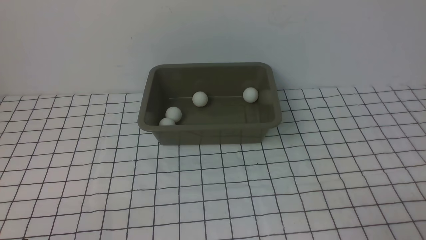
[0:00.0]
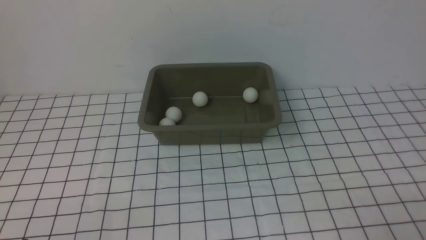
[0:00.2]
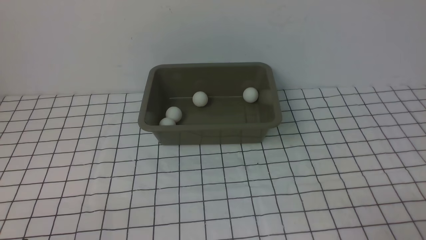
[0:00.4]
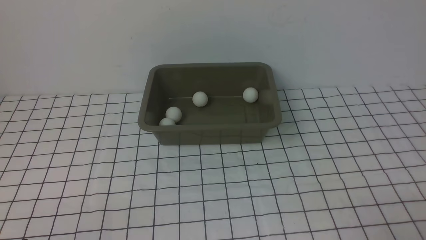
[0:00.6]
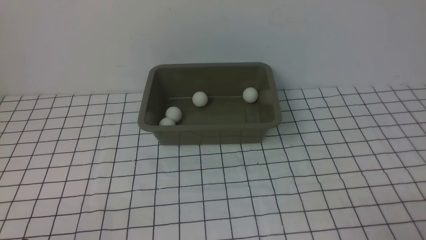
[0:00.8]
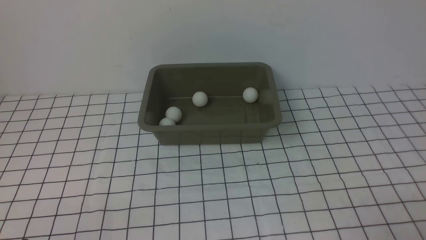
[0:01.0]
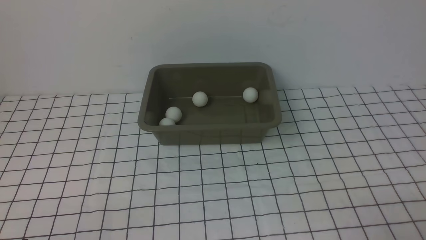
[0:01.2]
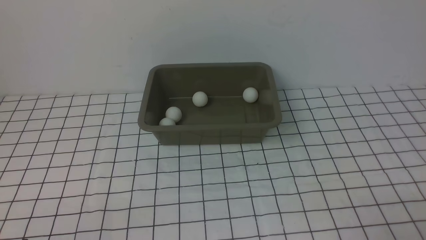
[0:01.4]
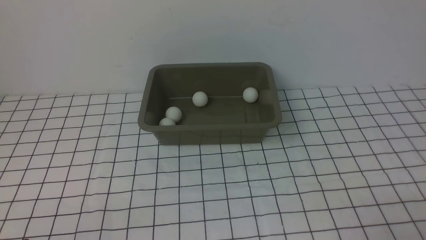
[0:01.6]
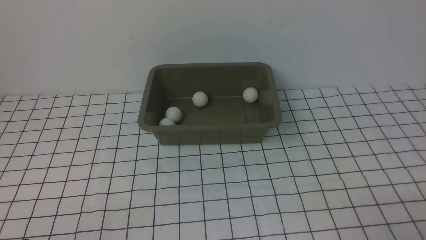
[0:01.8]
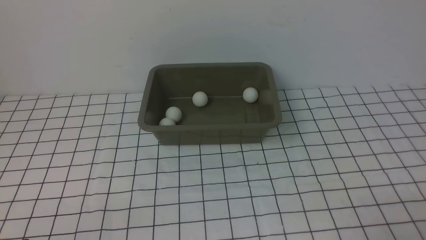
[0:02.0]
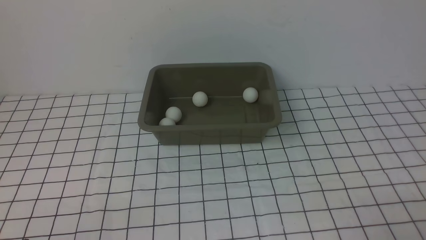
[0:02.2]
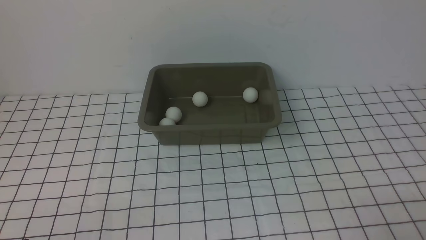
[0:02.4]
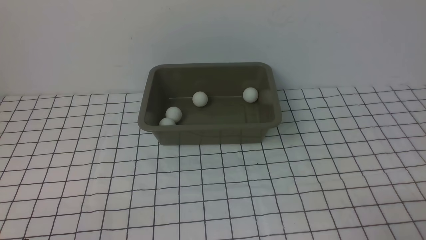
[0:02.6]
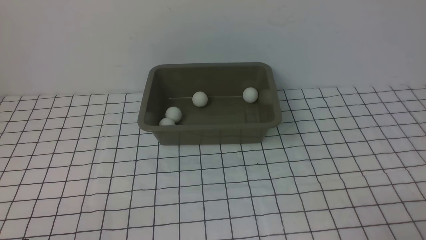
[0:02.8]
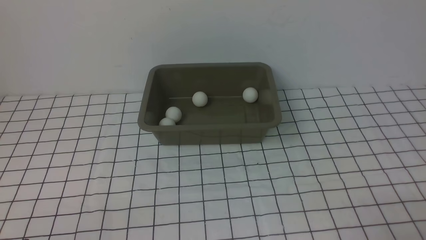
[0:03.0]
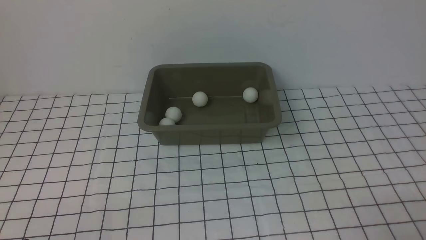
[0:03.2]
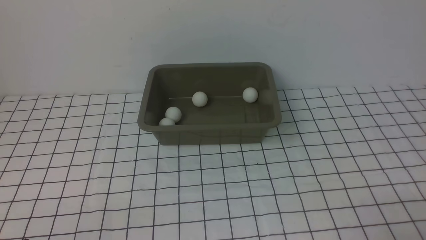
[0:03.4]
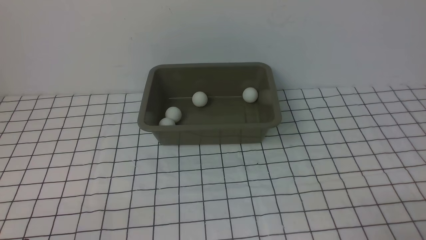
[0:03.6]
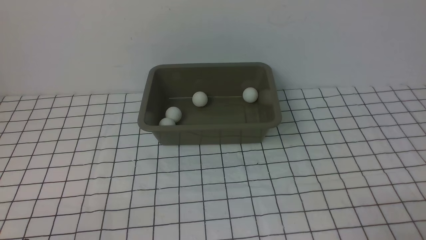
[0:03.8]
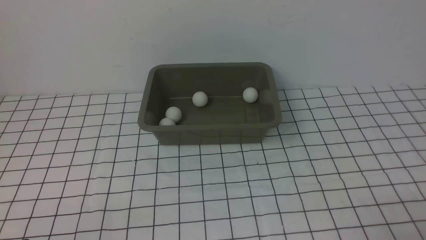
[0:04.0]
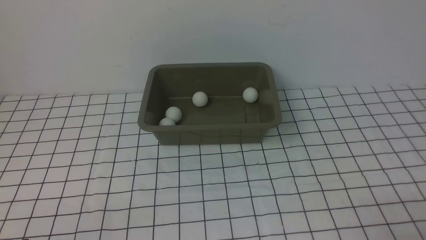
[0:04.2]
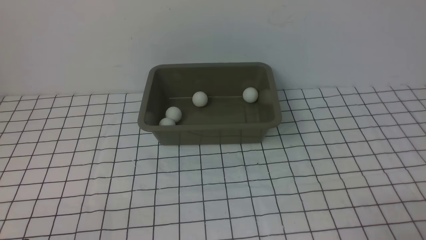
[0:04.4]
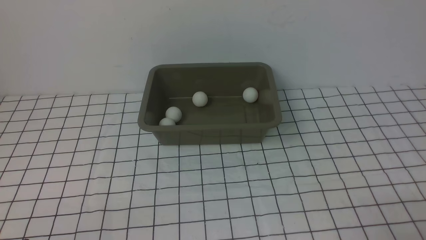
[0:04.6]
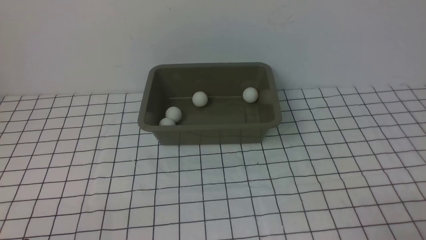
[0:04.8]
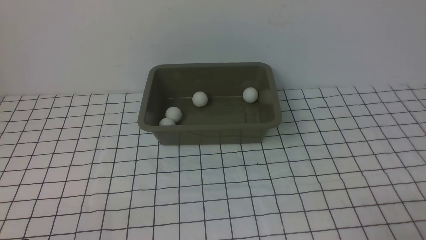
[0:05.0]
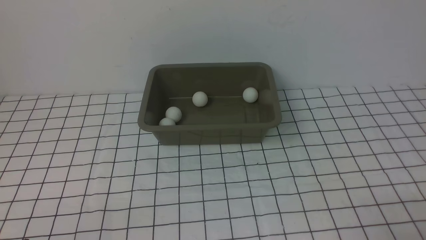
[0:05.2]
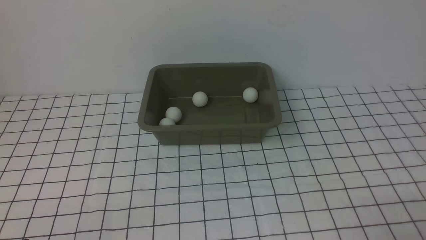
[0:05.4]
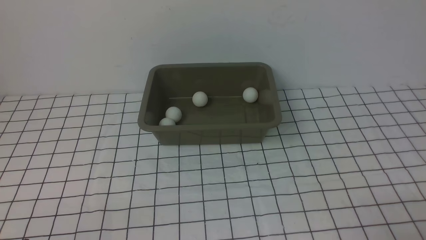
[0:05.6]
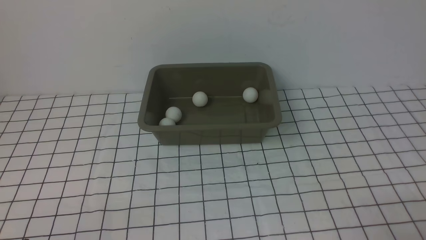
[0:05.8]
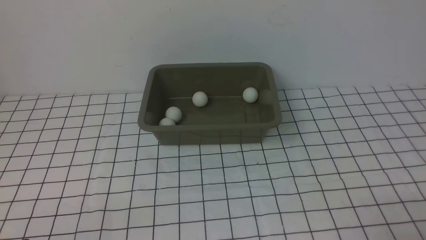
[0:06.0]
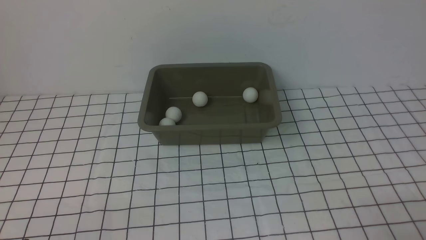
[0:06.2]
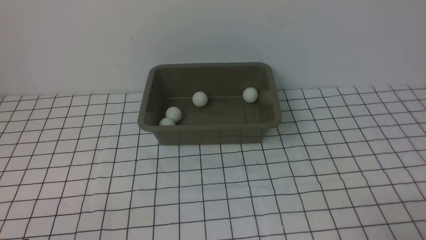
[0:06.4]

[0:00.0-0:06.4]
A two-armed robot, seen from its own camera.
0:00.0 to 0:01.6: The two grippers keep their place.
0:03.2 to 0:06.4: The two grippers keep their place.
